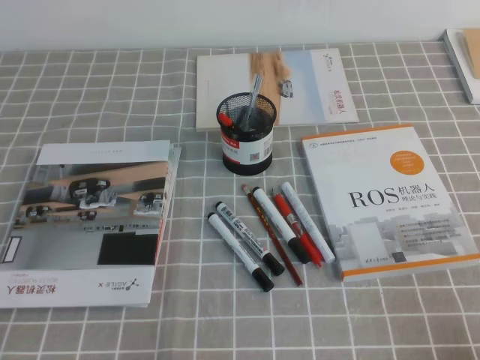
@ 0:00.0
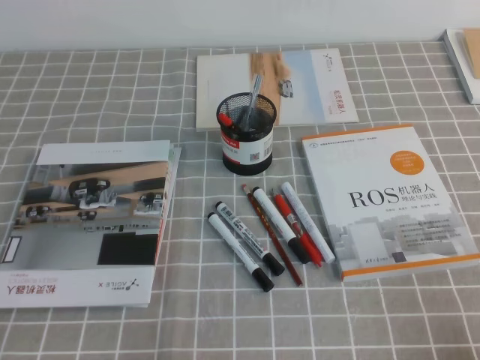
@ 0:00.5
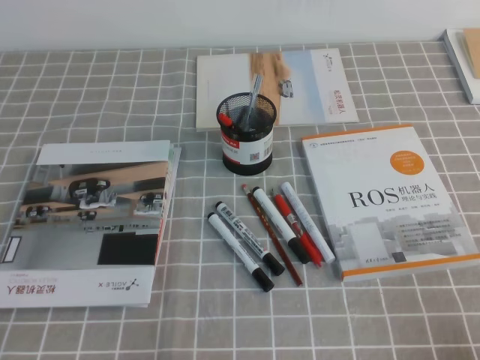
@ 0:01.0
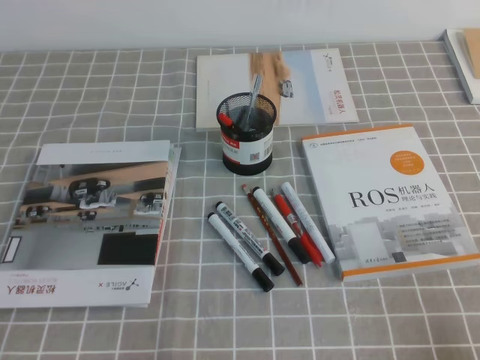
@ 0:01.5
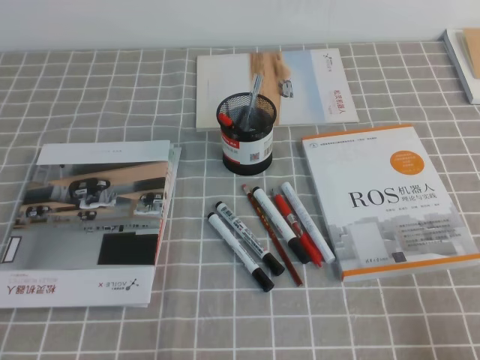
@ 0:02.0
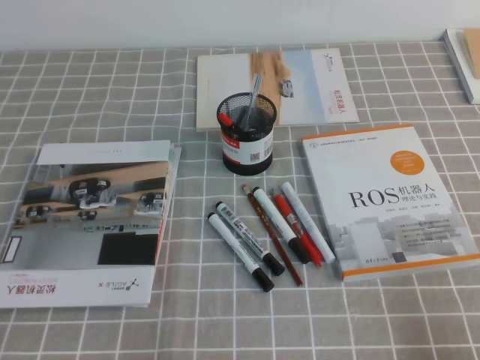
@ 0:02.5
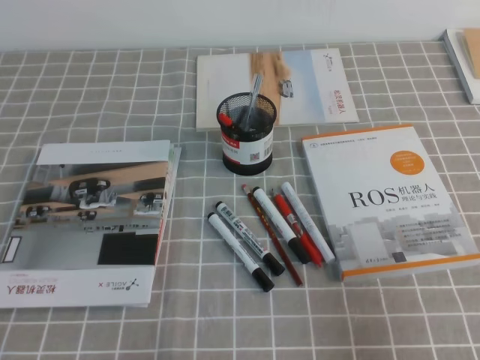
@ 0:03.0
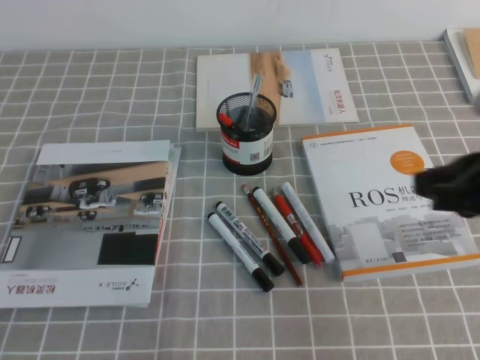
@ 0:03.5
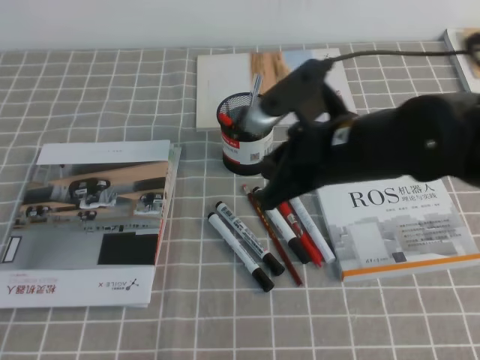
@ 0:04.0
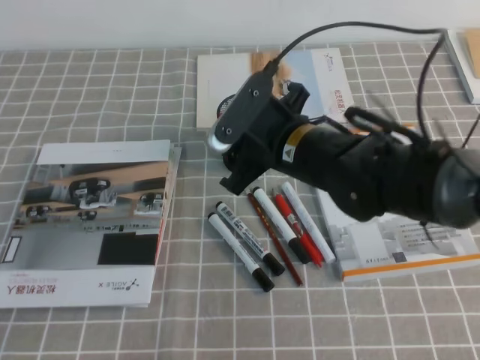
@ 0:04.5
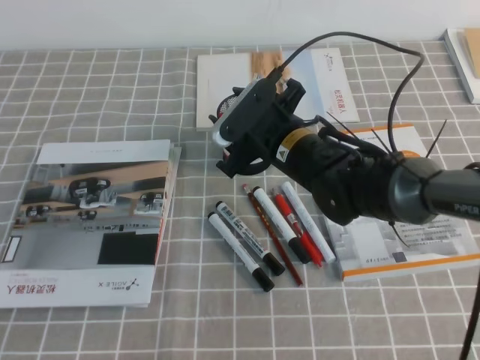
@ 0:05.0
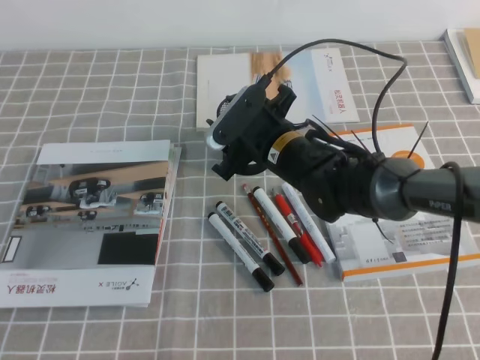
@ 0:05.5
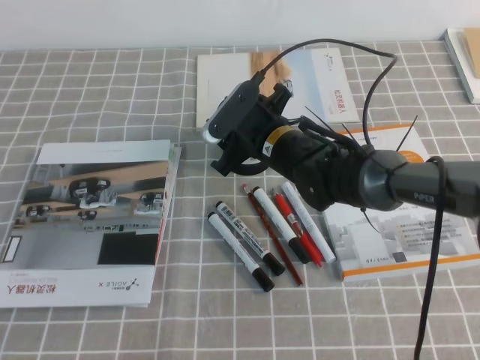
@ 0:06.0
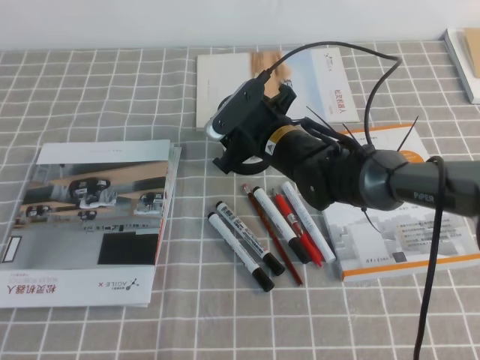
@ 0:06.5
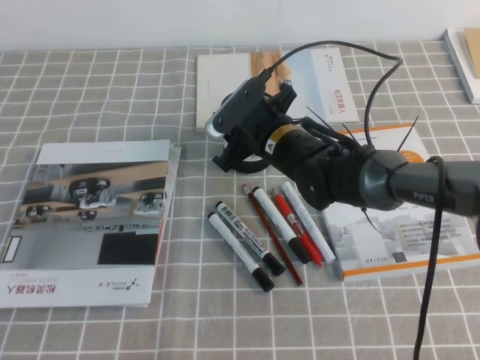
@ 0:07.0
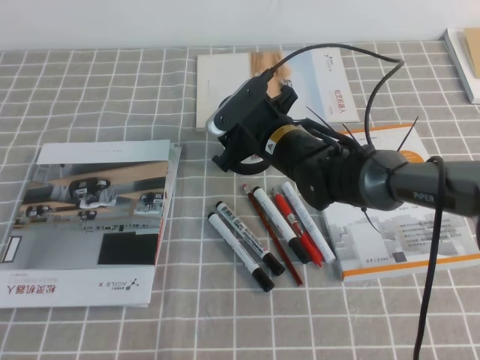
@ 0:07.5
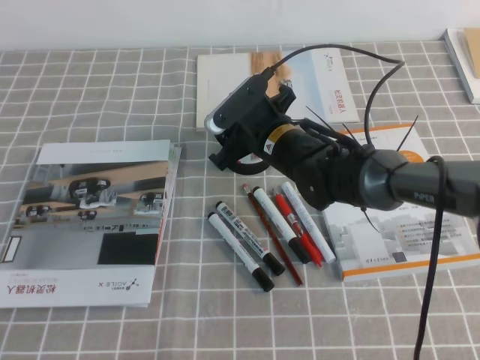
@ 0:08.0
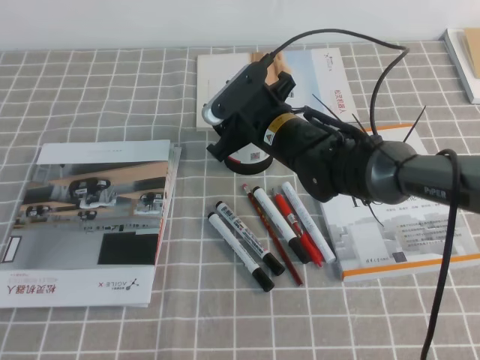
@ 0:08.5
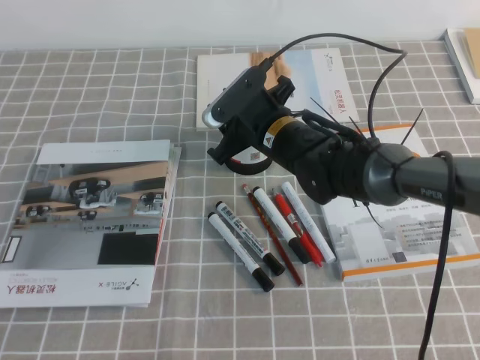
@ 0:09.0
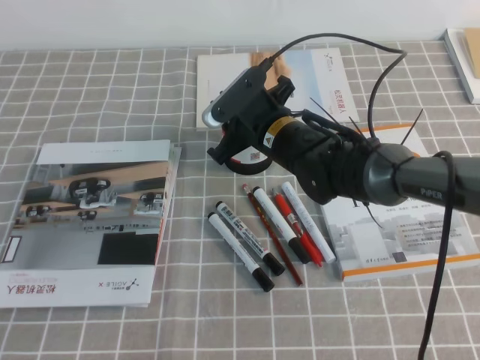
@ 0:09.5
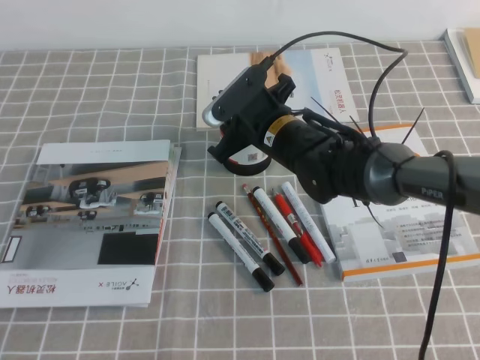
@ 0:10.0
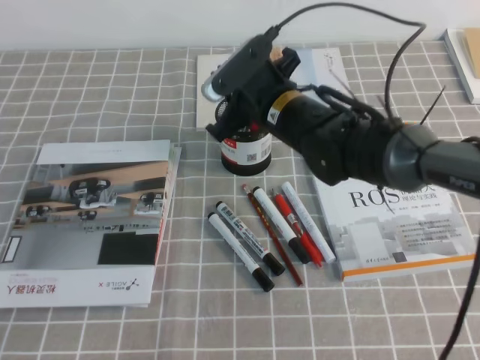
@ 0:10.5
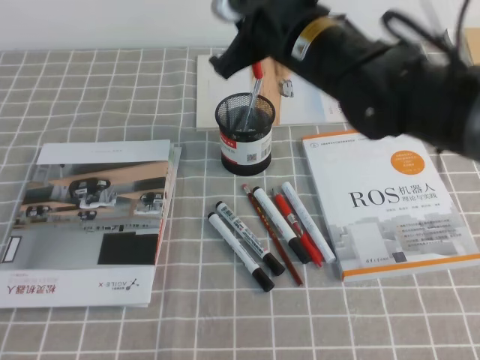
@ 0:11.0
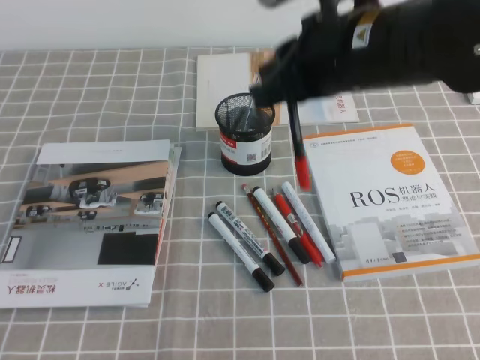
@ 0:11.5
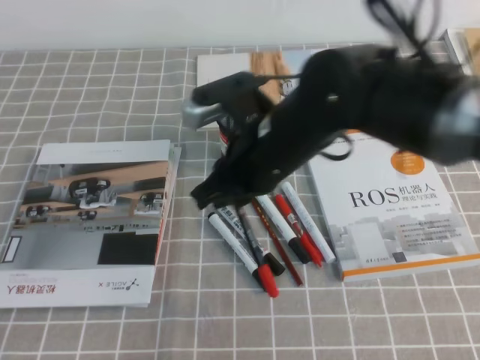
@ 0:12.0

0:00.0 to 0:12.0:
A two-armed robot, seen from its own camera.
0:02.0 to 0:04.0: The right gripper shifts some 30 cm forward, to the left and upward.
0:04.0 to 0:06.0: The right gripper travels forward, downward and to the left by approximately 20 cm, and opens its fingers.
0:06.0 to 0:08.0: The grippers stay close to where they were, moving slightly.
0:08.0 to 0:10.0: The right gripper closes its fingers.
0:10.0 to 0:12.0: The right gripper shifts approximately 15 cm backward and upward.

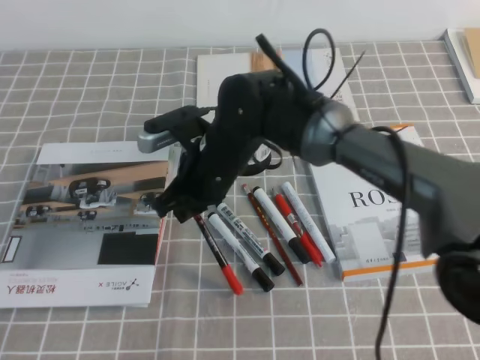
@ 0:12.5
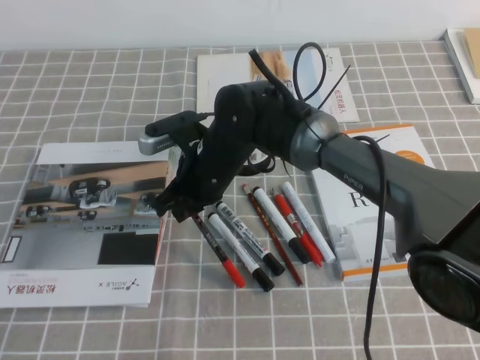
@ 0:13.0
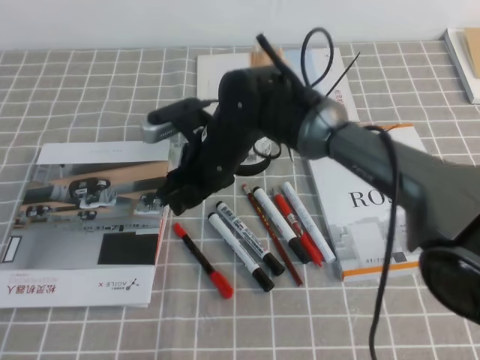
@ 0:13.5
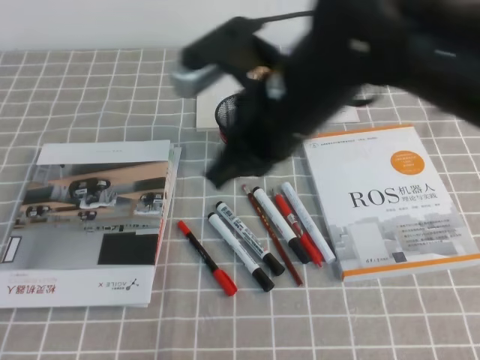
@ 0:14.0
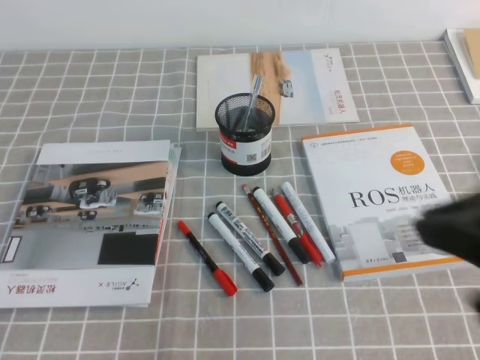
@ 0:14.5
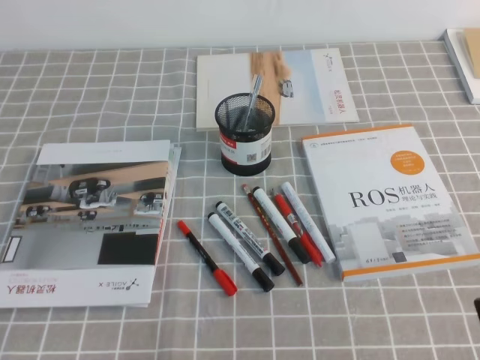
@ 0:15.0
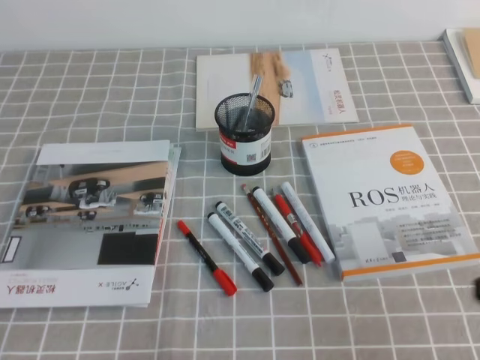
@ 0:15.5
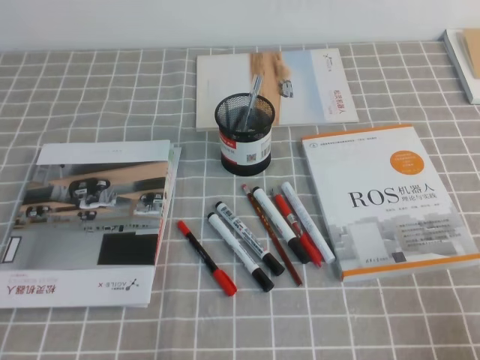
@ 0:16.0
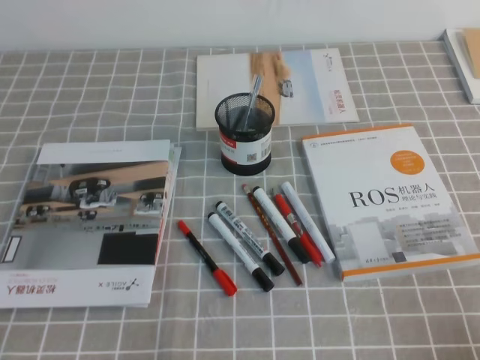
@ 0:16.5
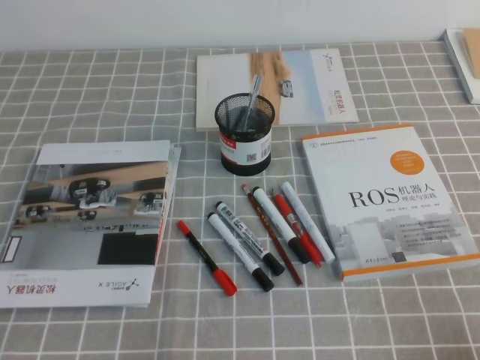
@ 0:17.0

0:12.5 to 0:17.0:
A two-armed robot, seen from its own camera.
Step, 0:12.5 to 0:17.0: Pick up the pen from the pen holder.
0:12.5 to 0:14.5: The right gripper goes about 35 cm to the right, backward and upward, and opens, then closes once more.
0:14.5 to 0:17.0: The right gripper heads downward and to the right, covering some 25 cm.
